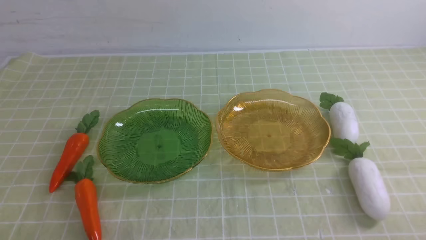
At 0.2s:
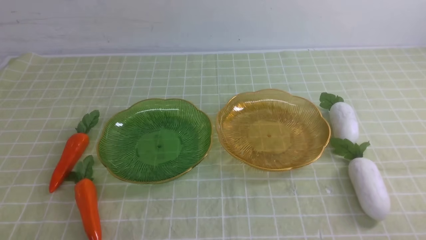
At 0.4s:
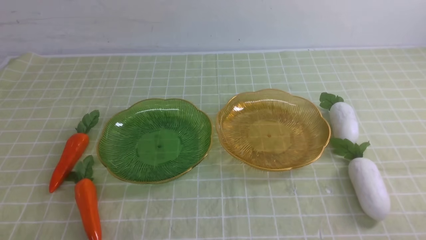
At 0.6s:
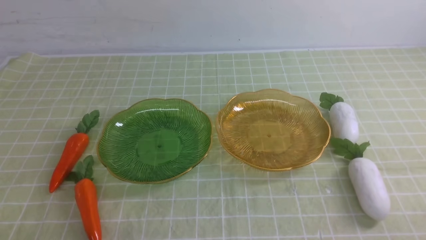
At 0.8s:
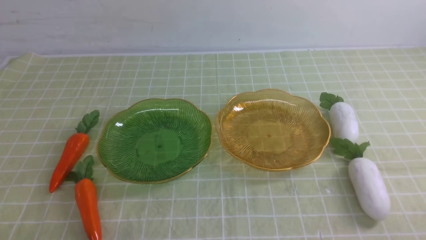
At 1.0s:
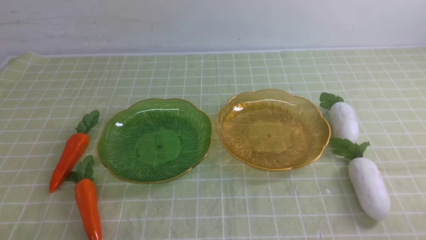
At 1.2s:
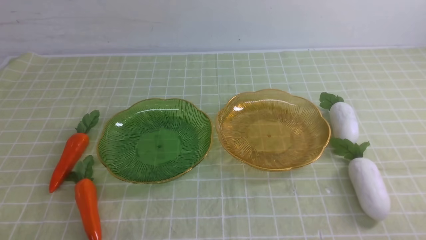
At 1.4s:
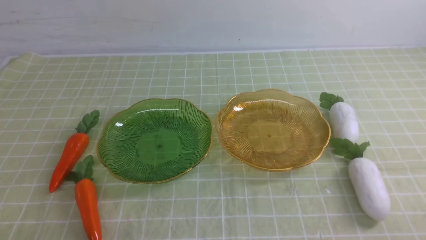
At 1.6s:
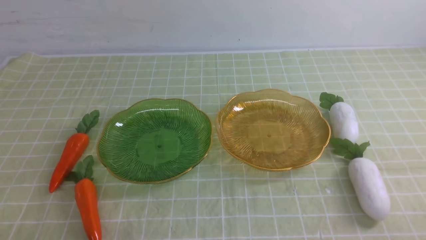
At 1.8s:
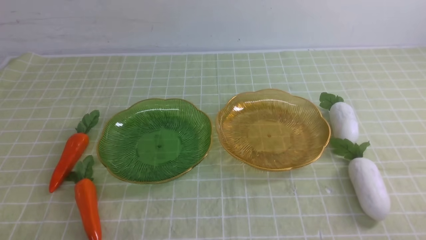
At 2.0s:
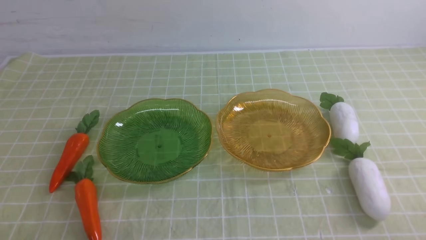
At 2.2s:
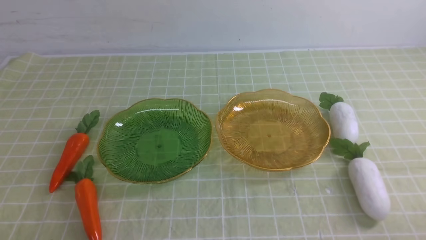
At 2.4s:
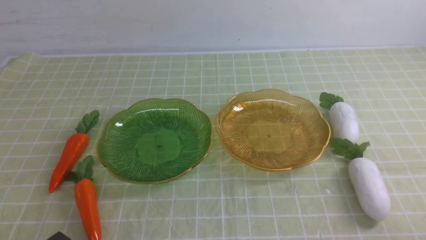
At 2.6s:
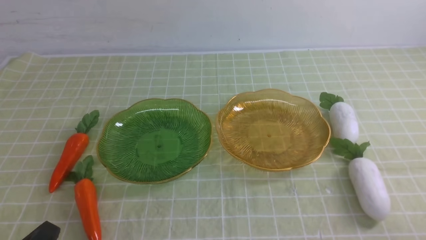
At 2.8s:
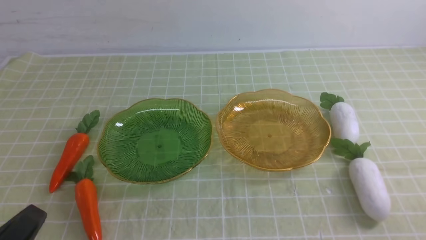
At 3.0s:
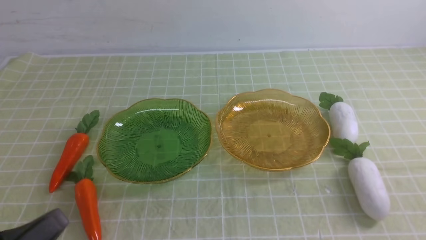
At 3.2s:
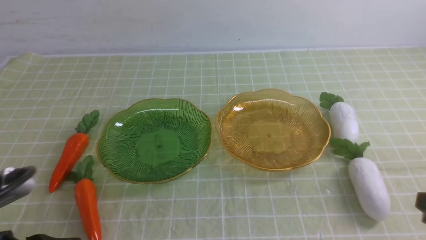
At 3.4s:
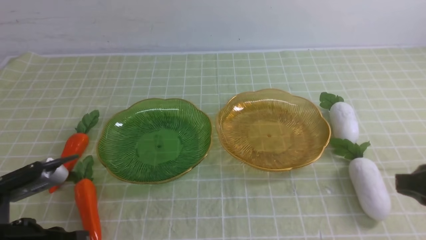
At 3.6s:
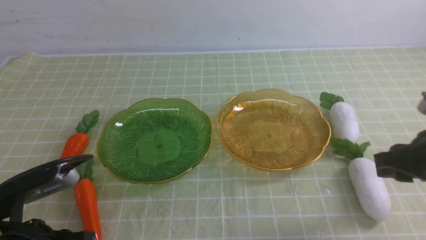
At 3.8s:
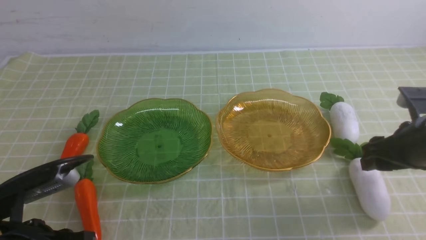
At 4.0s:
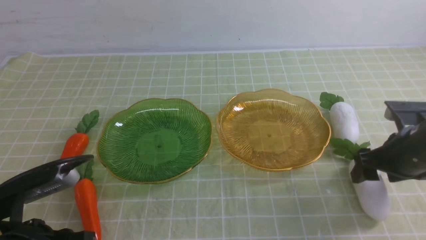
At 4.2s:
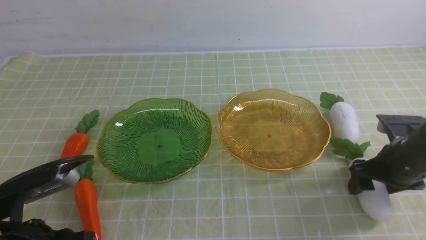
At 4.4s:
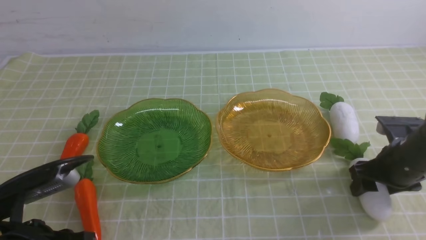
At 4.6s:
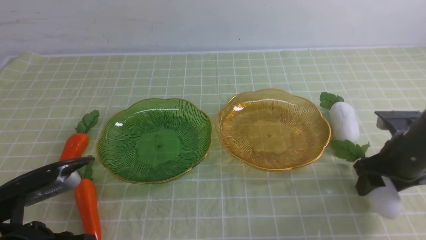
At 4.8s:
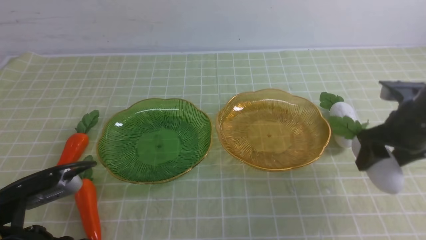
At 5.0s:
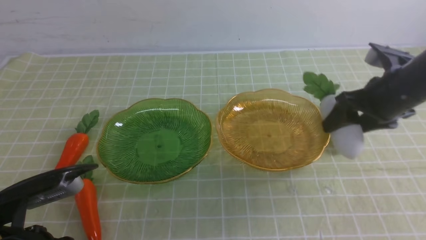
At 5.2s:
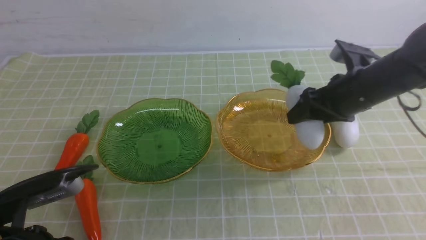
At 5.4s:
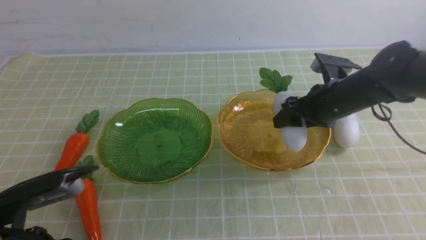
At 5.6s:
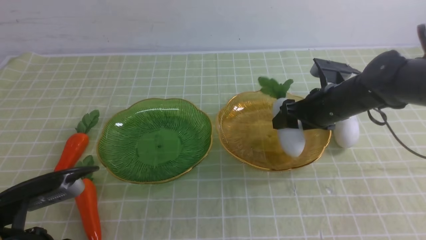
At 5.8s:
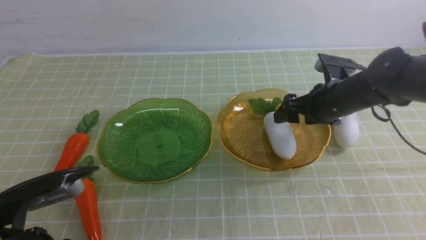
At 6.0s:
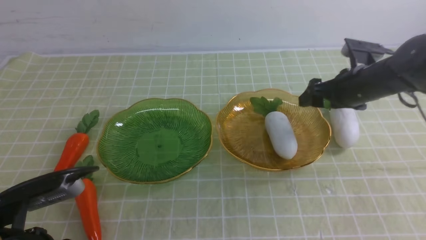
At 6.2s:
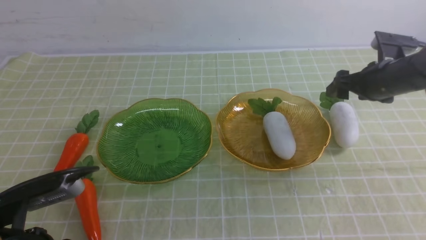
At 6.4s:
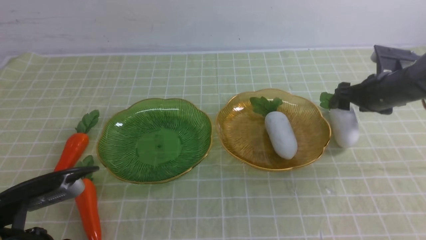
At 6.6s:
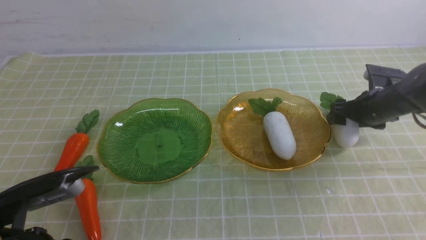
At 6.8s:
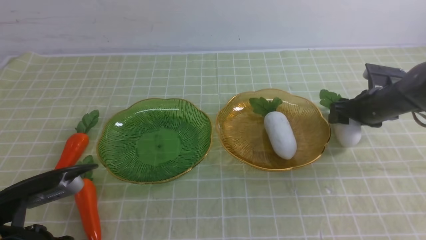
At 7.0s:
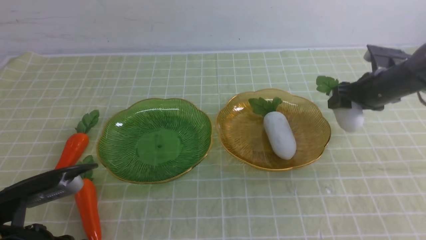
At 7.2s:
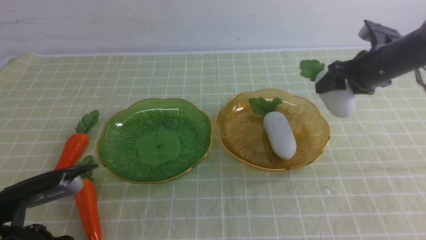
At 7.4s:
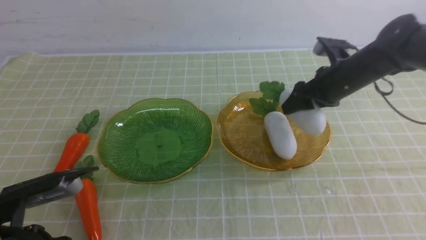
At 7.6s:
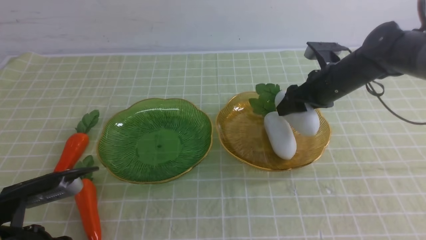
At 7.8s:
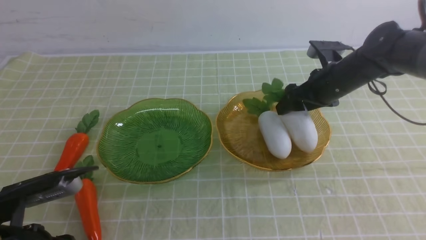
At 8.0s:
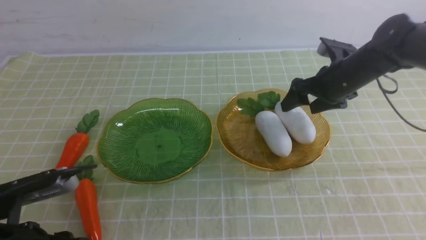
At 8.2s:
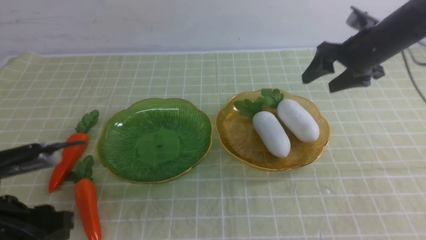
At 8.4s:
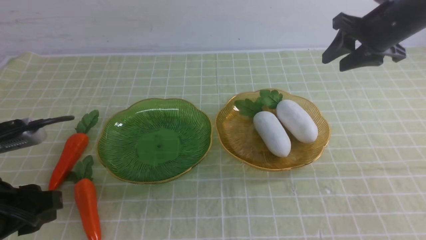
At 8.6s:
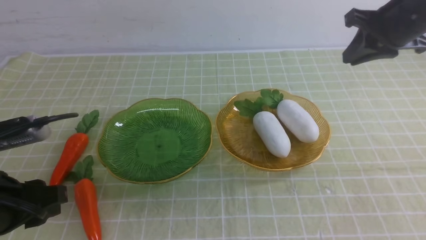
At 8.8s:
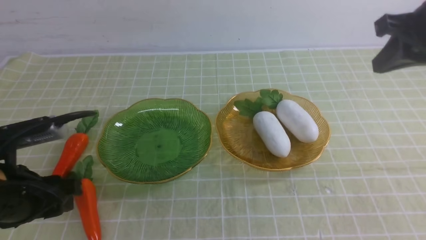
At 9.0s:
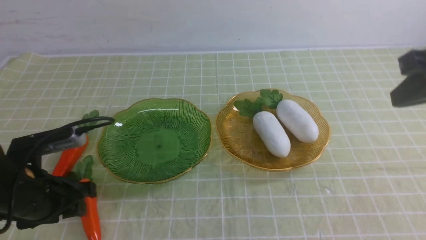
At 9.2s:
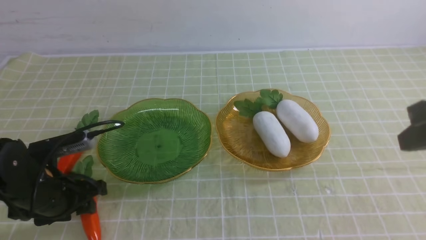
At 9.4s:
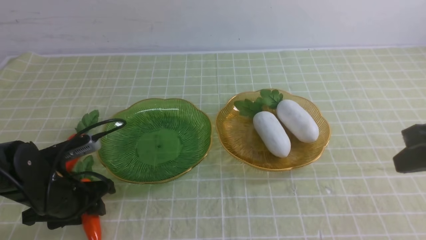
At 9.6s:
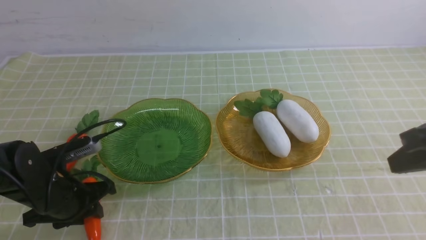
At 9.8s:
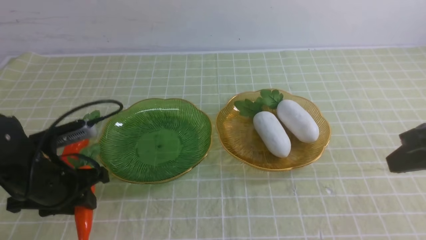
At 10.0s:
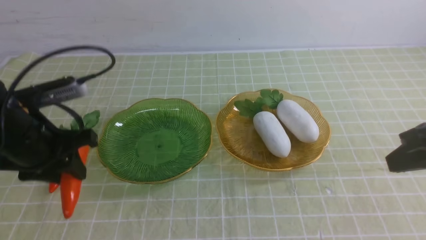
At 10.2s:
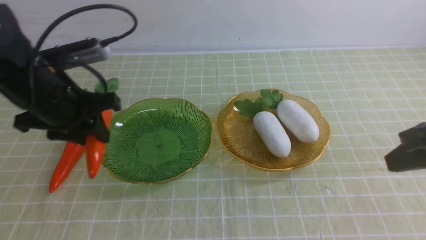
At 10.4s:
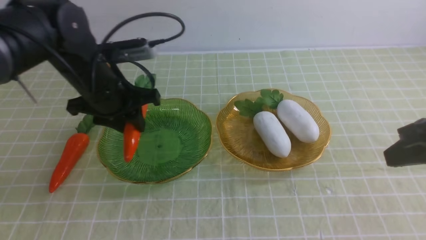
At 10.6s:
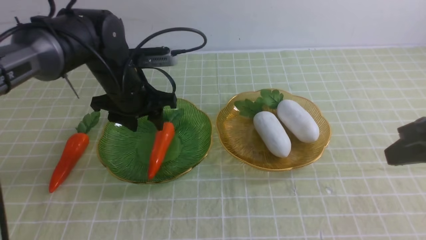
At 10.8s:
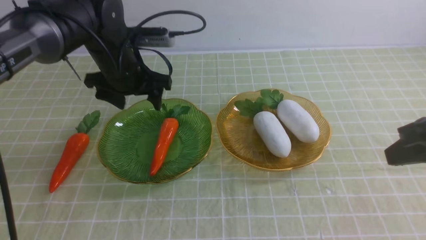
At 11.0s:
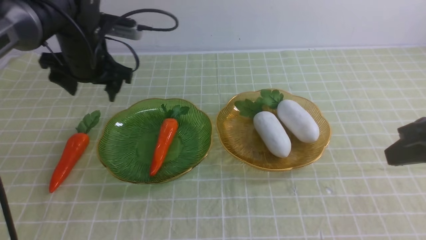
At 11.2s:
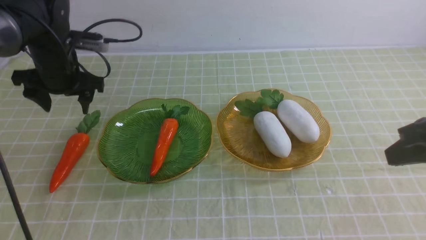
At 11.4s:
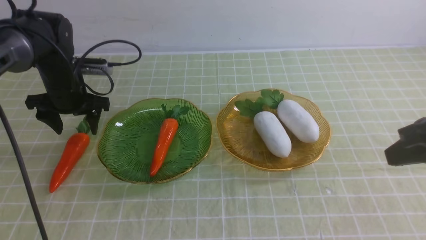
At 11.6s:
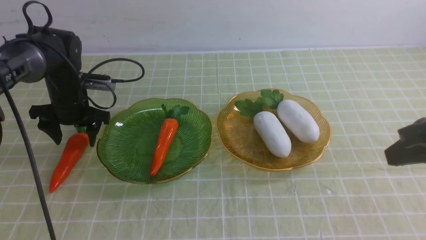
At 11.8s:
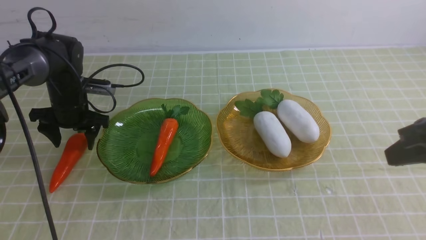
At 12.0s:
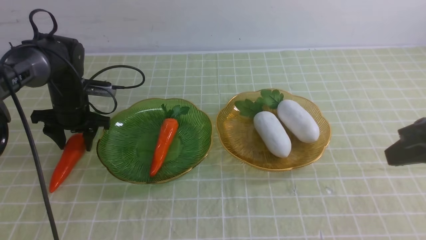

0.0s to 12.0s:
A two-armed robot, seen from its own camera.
Step, 0.0s to 8.8s: use the right arm to grab a radish and put it into the right plate.
Step, 9.2s to 11.0s: use the left arm to grab a carrot and put it into the left plate.
1.6s to 3.0s: The left gripper moves upward, some 10 cm.
3.0s to 4.4s: The left gripper goes approximately 5 cm forward; the right gripper moves forward, some 20 cm, and opens its fingers.
4.4s to 6.0s: The right gripper heads forward, covering roughly 10 cm.
7.6s to 9.0s: The right gripper shifts roughly 25 cm backward and upward, and closes up. Meanwhile the left gripper shifts some 10 cm forward, and opens.
9.0s to 10.4s: The right gripper shifts by approximately 5 cm. The left gripper heads forward, to the right and upward, covering approximately 15 cm.
10.4s to 12.0s: The left gripper is displaced to the left, downward and forward by some 20 cm.

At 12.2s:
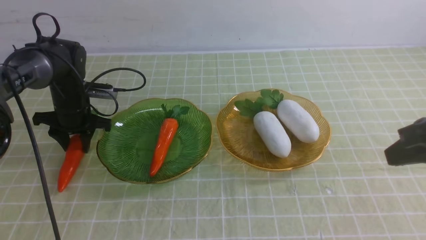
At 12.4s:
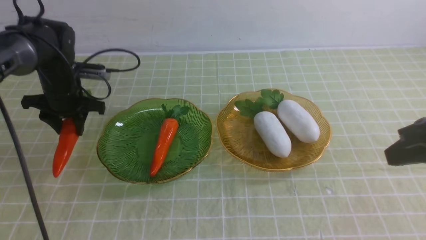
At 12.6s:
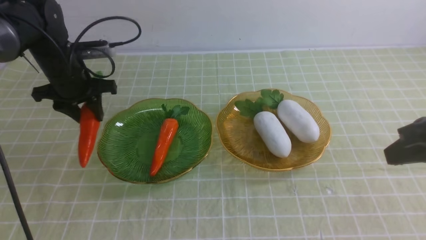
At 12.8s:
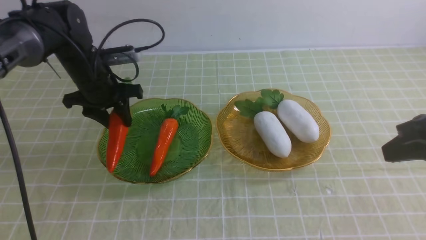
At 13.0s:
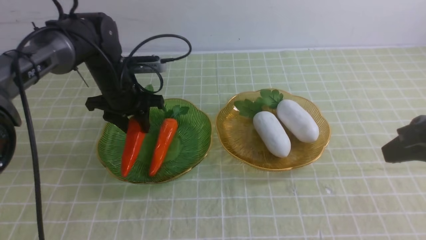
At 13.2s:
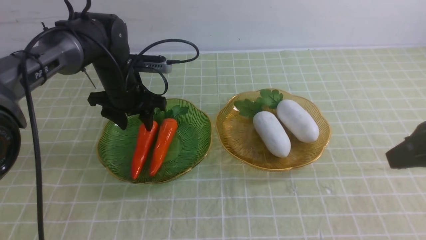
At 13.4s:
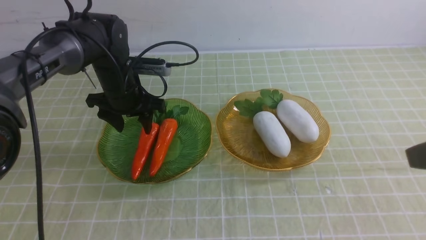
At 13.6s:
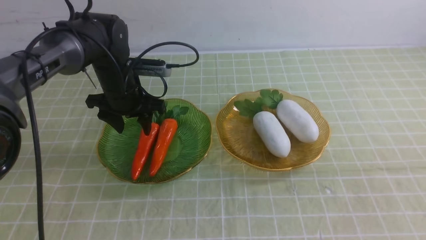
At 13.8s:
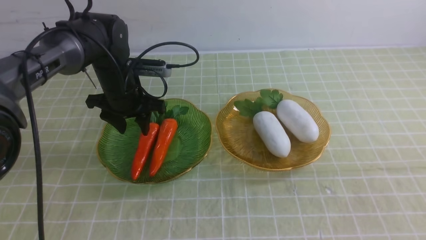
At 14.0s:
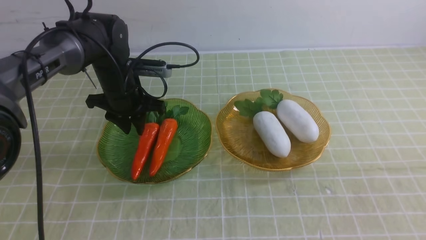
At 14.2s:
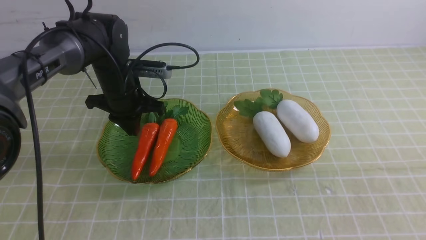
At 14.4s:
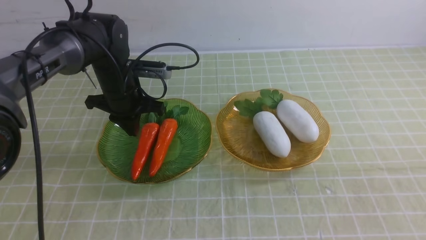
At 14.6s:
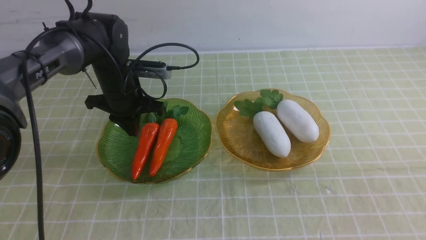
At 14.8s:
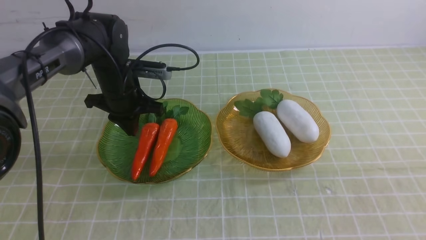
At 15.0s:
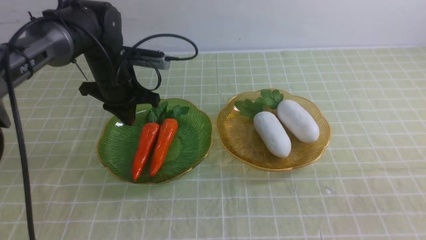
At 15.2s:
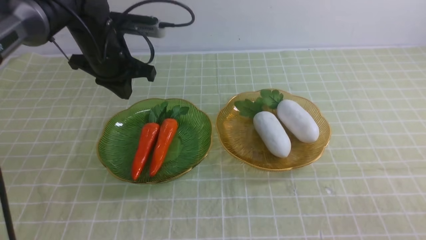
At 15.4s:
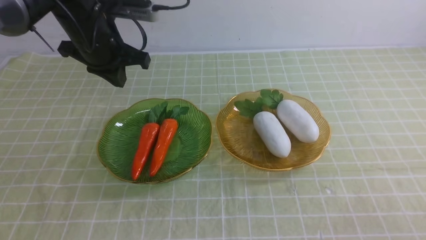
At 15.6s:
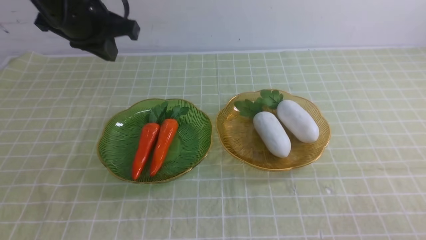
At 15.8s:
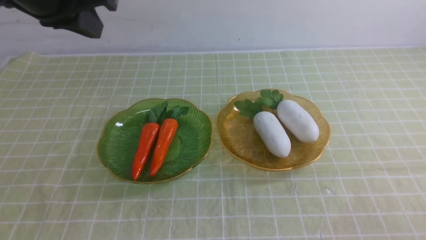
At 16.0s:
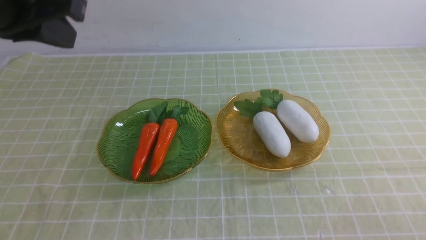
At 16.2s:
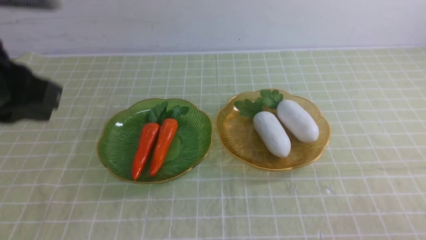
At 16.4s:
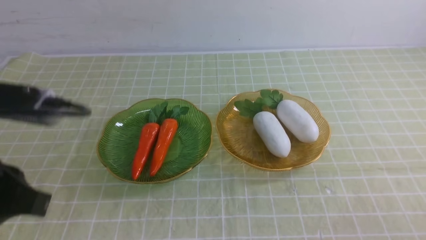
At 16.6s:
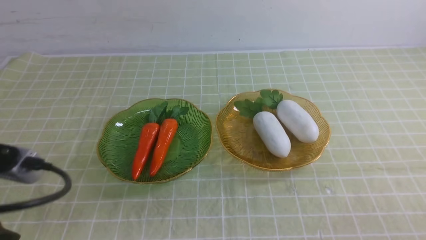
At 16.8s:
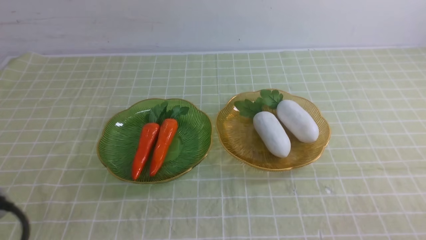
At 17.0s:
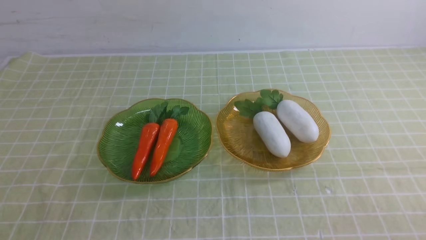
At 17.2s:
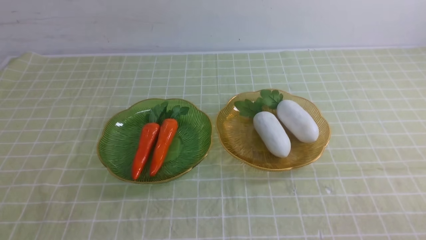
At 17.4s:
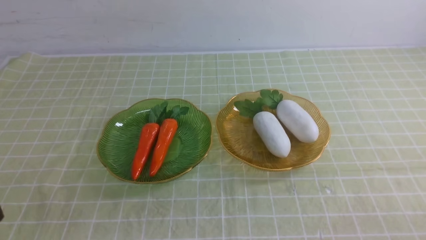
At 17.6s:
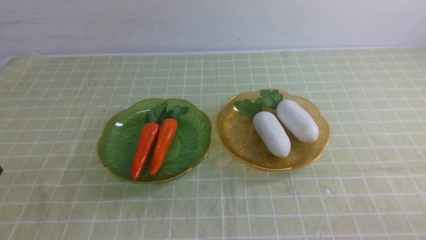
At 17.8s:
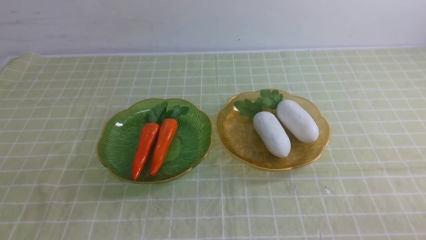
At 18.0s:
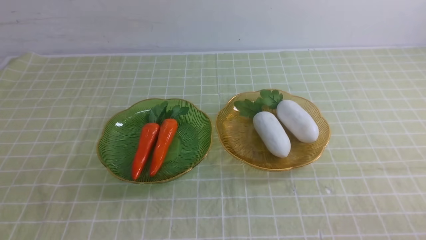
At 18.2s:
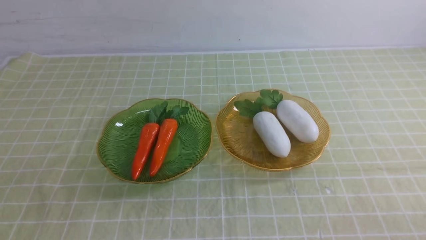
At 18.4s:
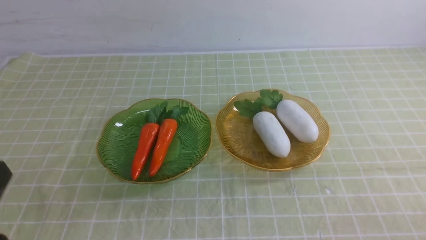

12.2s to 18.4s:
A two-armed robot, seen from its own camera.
Step, 12.2s to 14.0s: use the left arm to grab a carrot and put it into the left plate.
12.2s to 13.8s: The left gripper shifts roughly 10 cm to the right. Meanwhile the right gripper is displaced backward by approximately 15 cm.
13.8s to 15.4s: The left gripper shifts roughly 15 cm upward, and closes its fingers; the right gripper is displaced downward by some 15 cm.
15.4s to 16.8s: The left gripper travels backward by roughly 35 cm.
